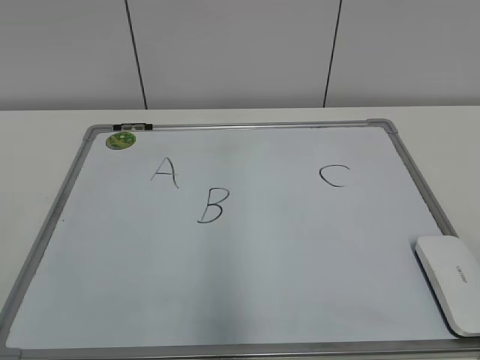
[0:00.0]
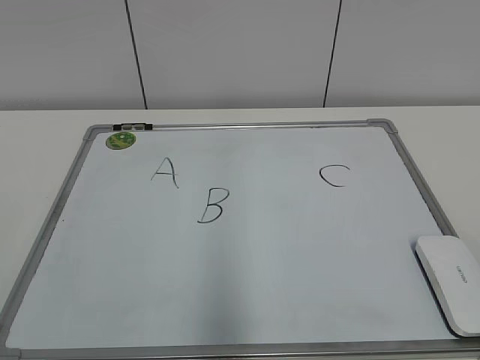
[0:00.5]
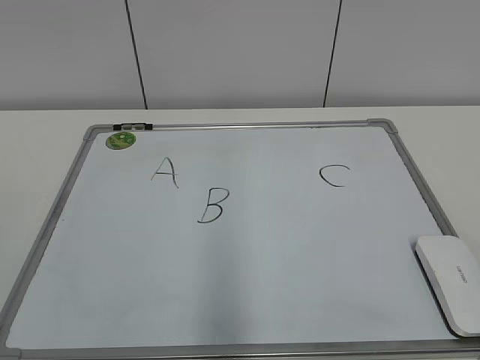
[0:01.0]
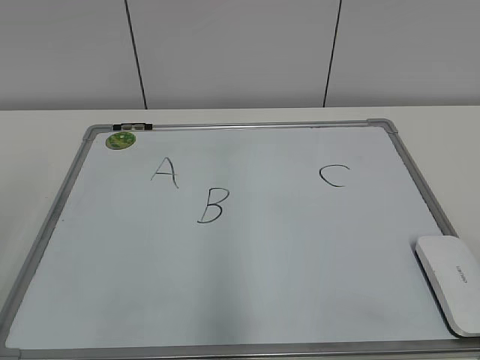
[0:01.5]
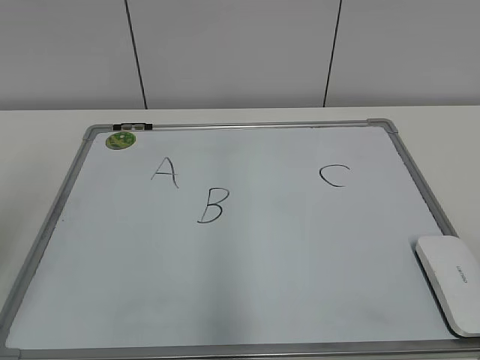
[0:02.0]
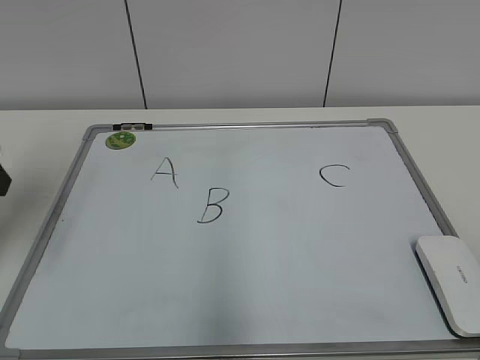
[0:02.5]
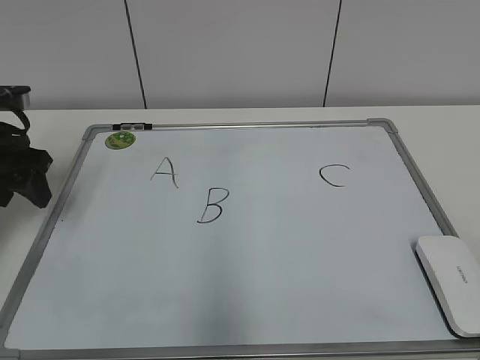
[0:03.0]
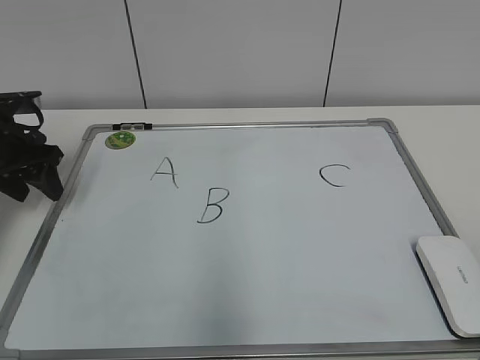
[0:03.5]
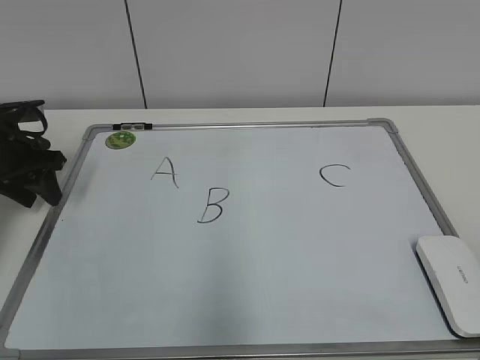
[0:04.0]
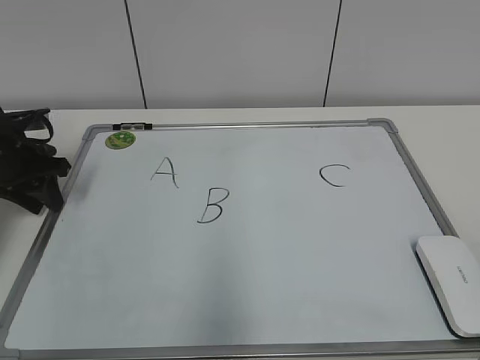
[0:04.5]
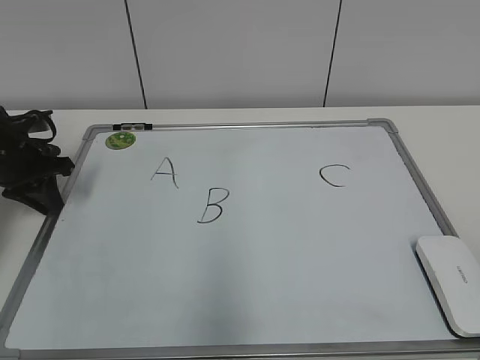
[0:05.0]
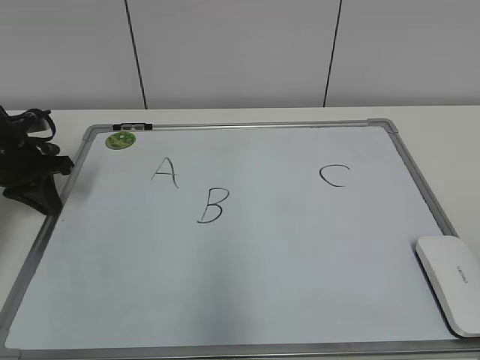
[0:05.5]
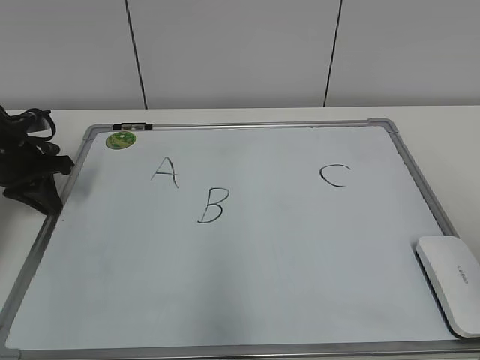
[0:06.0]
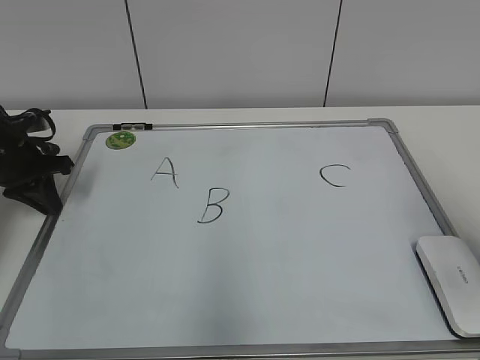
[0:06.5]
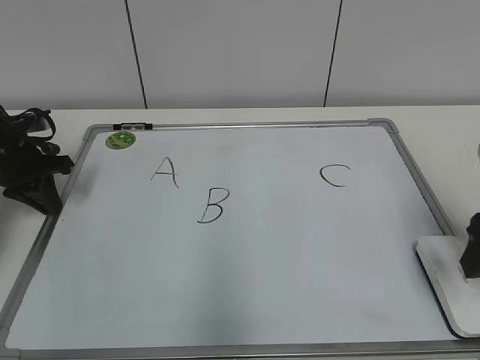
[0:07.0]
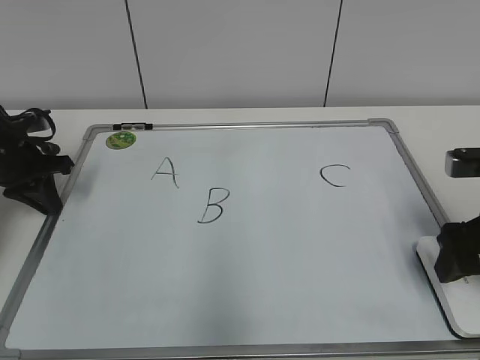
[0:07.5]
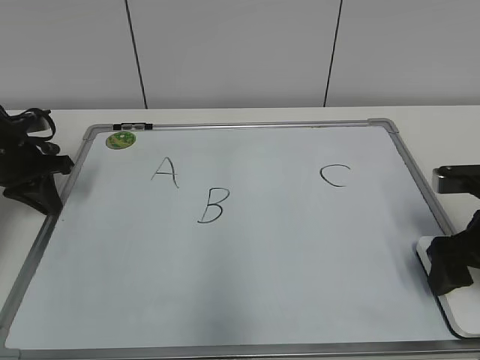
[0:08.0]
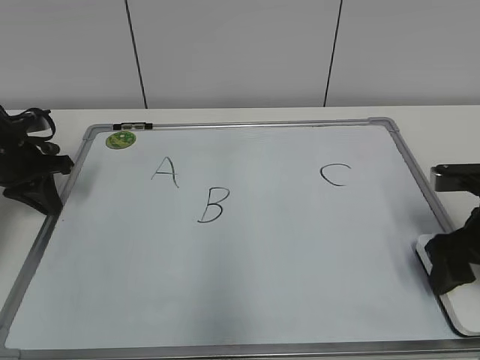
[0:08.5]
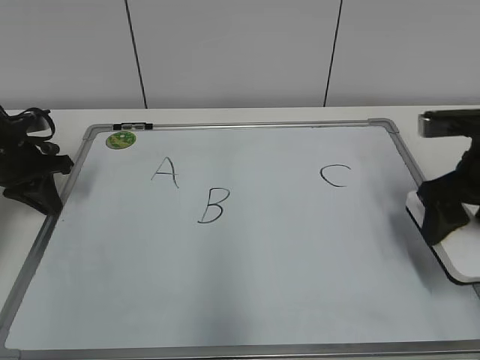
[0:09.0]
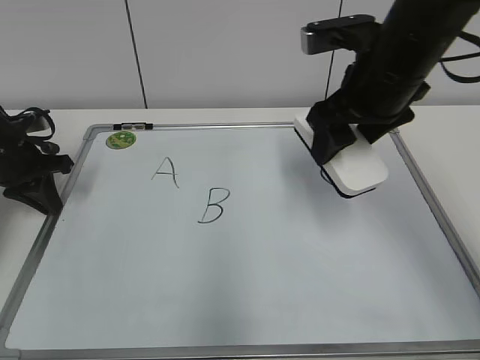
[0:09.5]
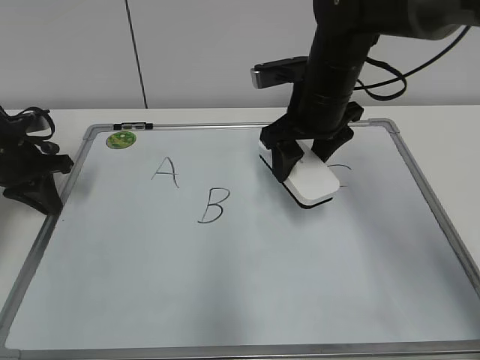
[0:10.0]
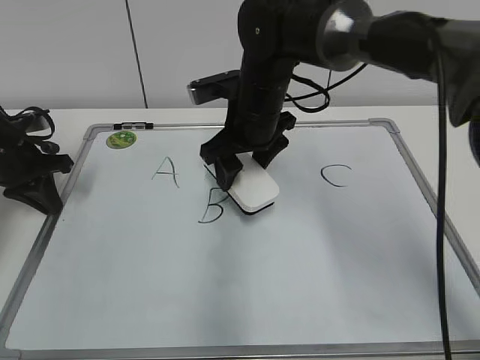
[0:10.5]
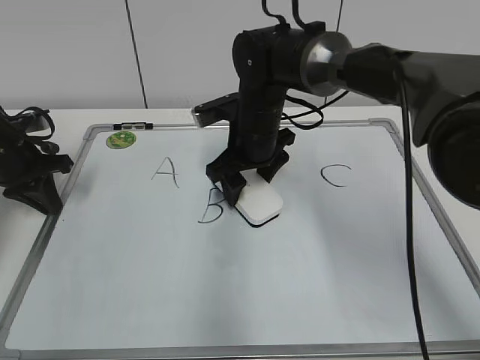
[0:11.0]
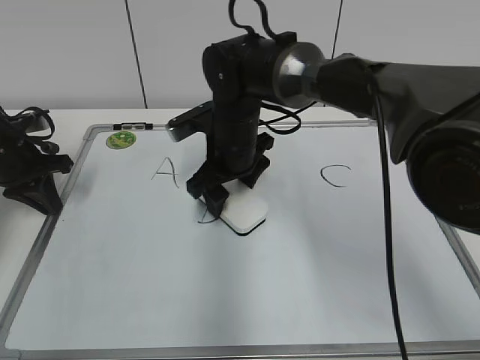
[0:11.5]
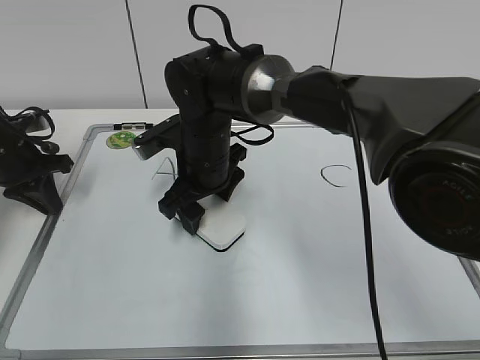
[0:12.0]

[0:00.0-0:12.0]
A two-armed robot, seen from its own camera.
Task of the whole recording: pick up the eraser on the blackboard and erase the letter "B".
Step, 0:00.0 to 0:04.5: Hold the drawing board steady with your left hand.
Step, 0:05.5 to 0:08.0: Grab the eraser with your right hand.
0:02.0 to 0:04.0: The left gripper shifts approximately 25 cm forward and downward.
0:04.0 to 0:06.0: The left gripper closes.
0:06.0 to 0:08.0: The right gripper heads forward and downward, covering some 25 cm, and opens its fingers.
0:08.0 to 0:10.0: The right gripper travels to the left, forward and upward by some 25 cm, and closes.
0:10.0 to 0:12.0: The right gripper heads to the left and downward, covering some 15 cm.

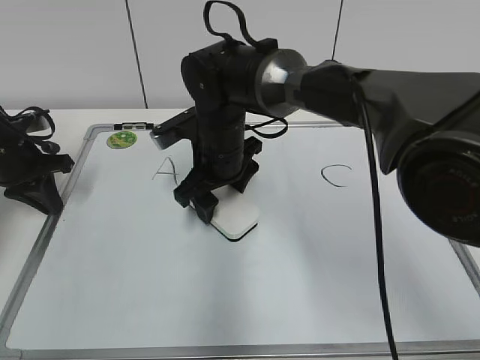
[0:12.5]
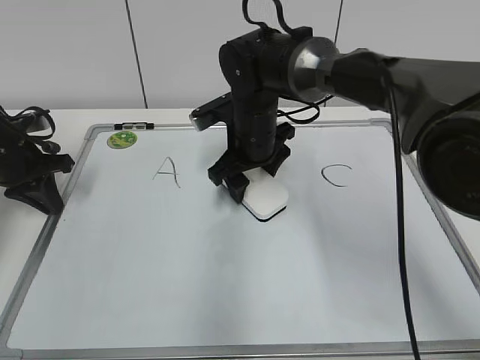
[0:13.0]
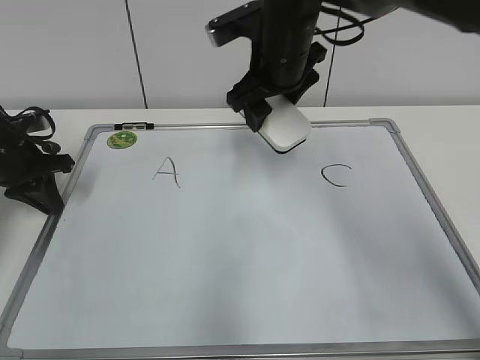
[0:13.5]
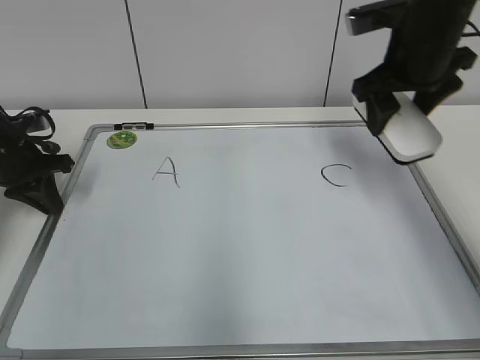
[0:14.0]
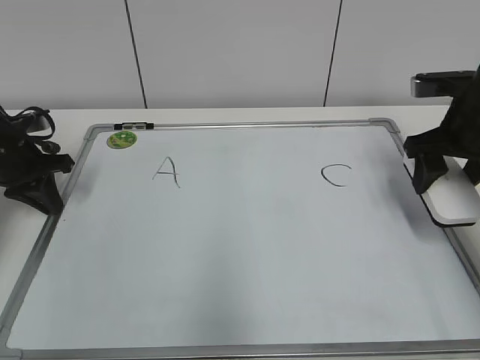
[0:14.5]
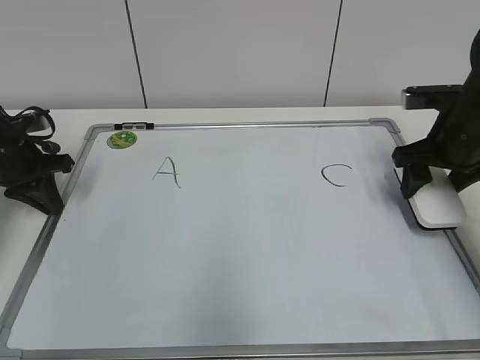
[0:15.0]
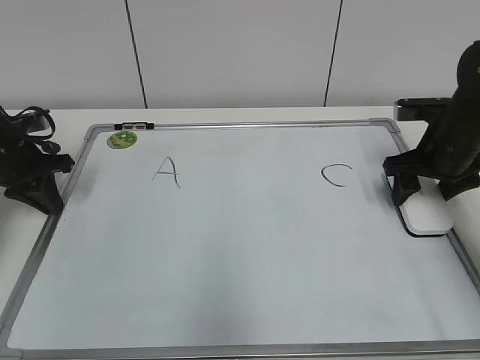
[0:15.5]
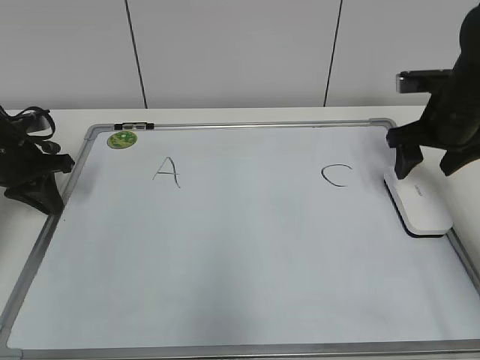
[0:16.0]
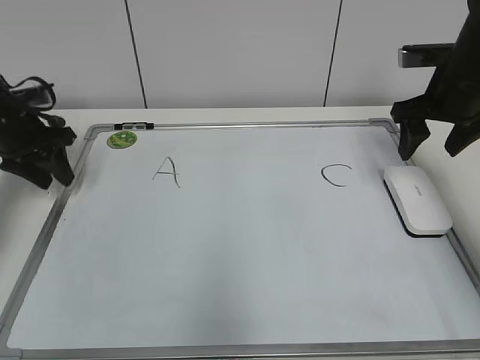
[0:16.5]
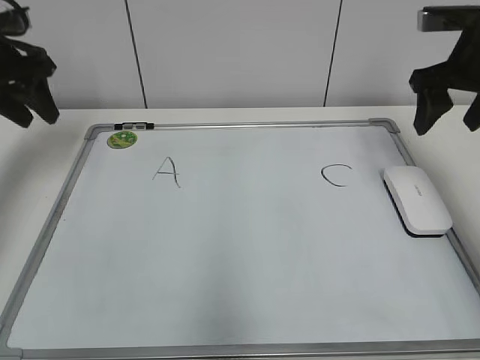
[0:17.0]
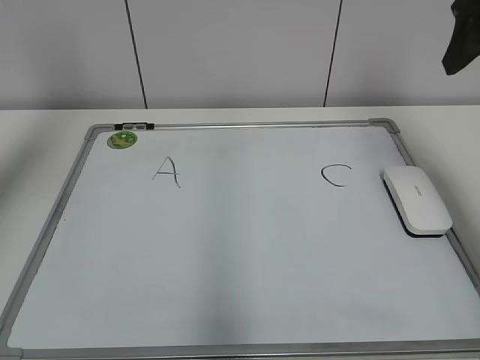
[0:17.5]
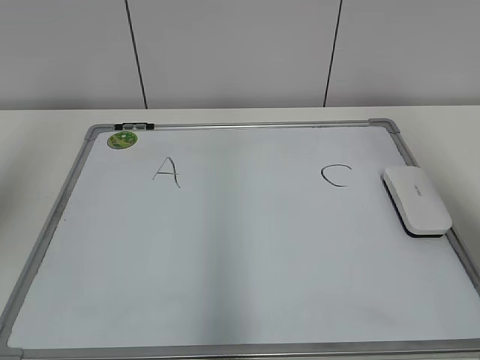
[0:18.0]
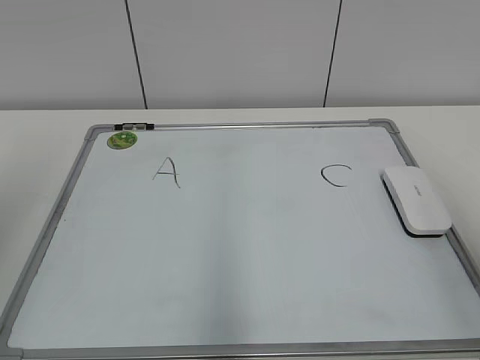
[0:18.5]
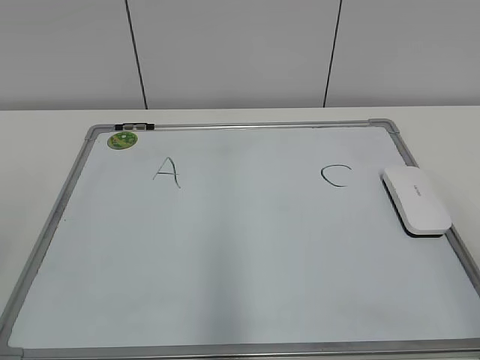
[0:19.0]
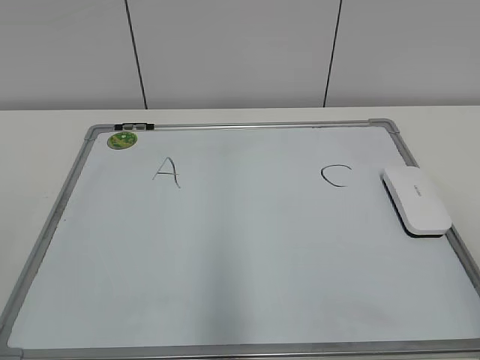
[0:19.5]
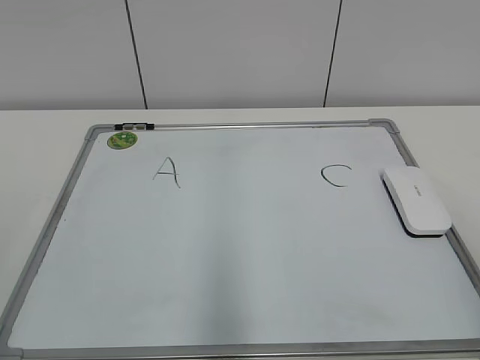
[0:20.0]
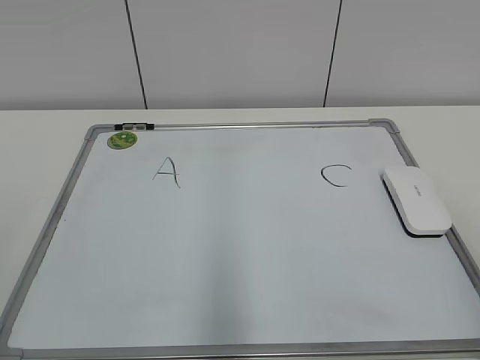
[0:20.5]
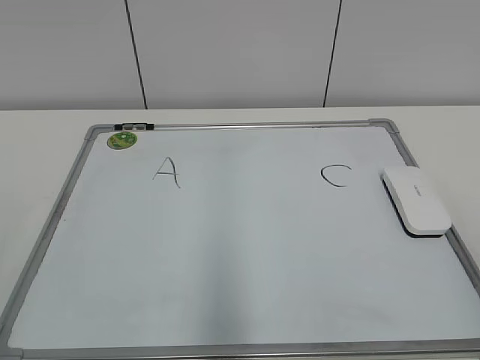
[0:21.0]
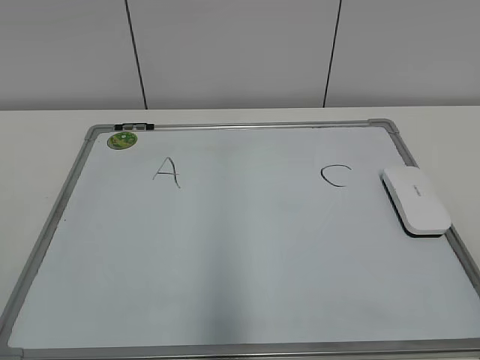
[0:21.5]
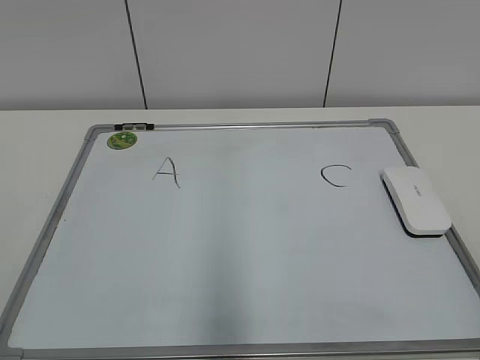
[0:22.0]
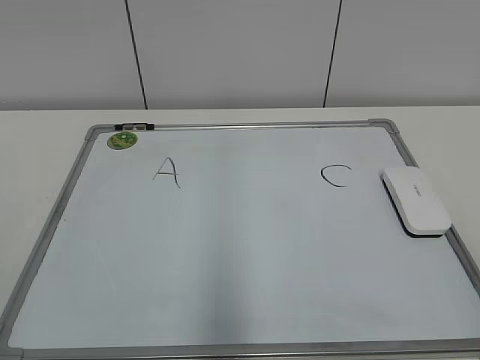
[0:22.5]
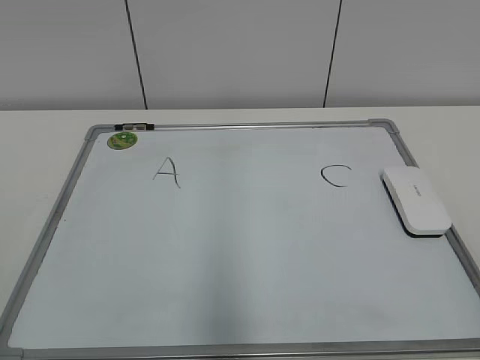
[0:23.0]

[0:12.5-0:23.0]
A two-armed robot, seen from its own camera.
Task of the whole recording: pick up the eraser on the blackboard and erase the letter "B".
Step, 0:13.5 to 0:15.5: Put down the eraser with your right hand.
0:12.5 to 0:14.5: The right gripper travels to the right by approximately 30 cm.
0:14.5 to 0:16.5: The left gripper opens its fingers. Meanwhile the right gripper shifts by roughly 5 cm, and opens its fingers.
0:16.5 to 0:19.0: The grippers both shift backward by approximately 35 cm.
